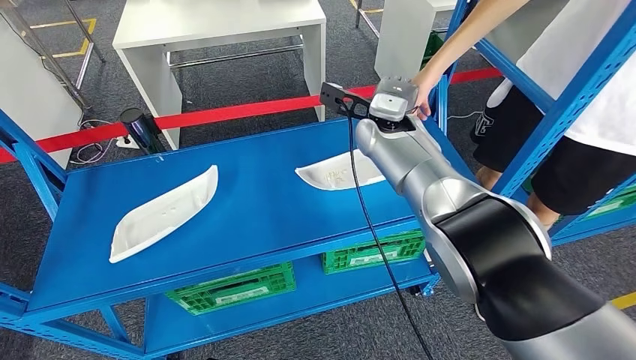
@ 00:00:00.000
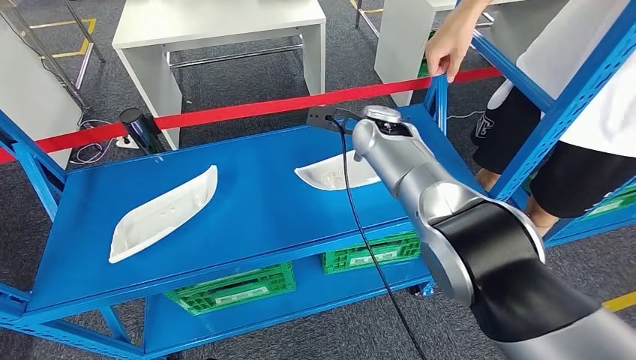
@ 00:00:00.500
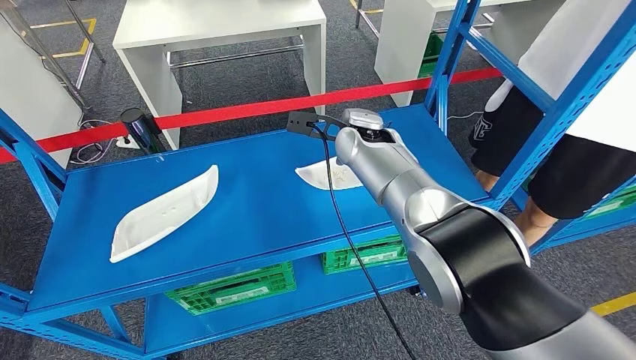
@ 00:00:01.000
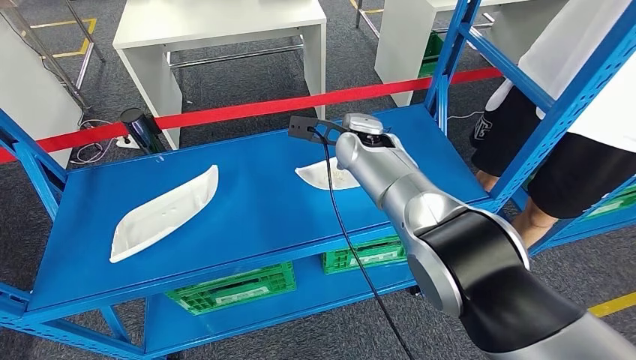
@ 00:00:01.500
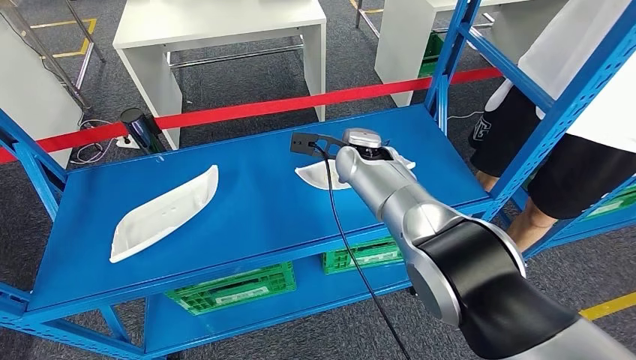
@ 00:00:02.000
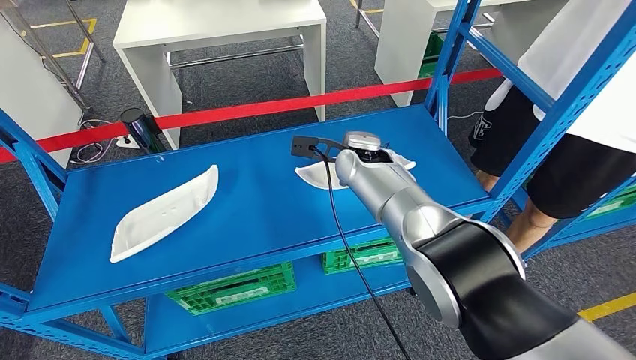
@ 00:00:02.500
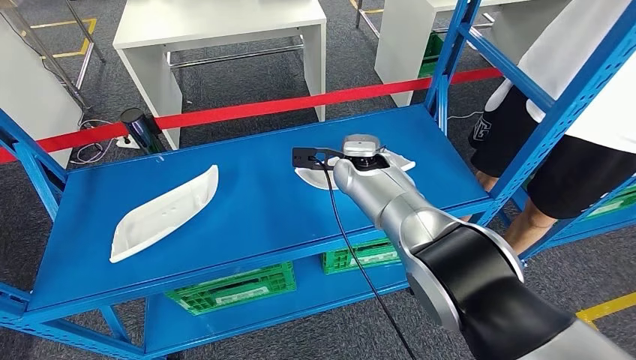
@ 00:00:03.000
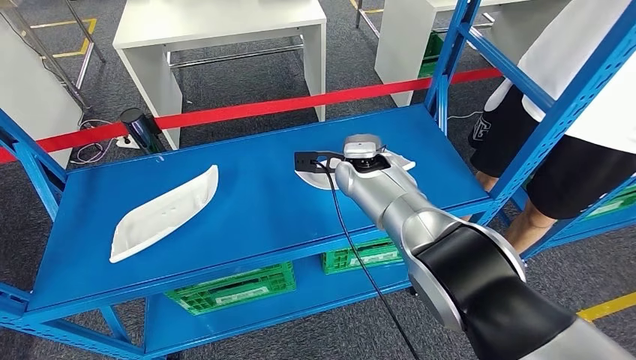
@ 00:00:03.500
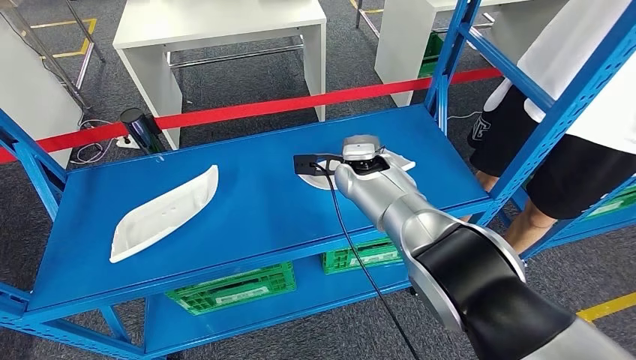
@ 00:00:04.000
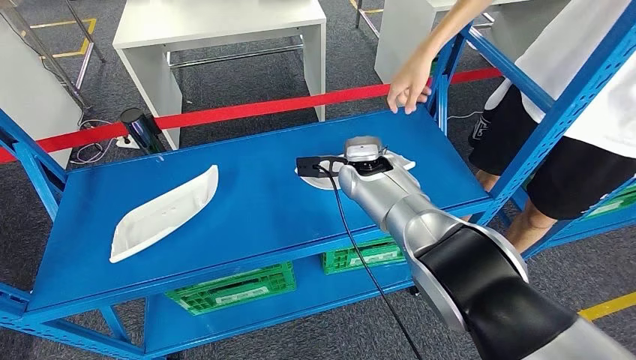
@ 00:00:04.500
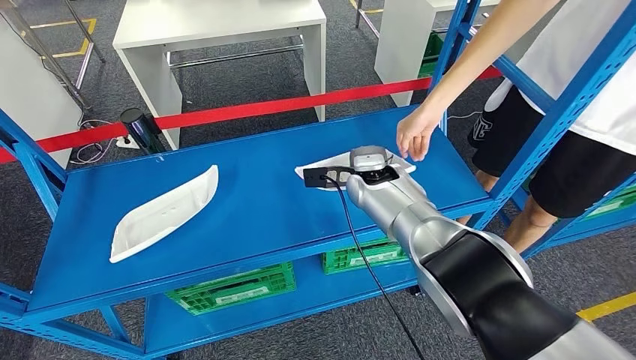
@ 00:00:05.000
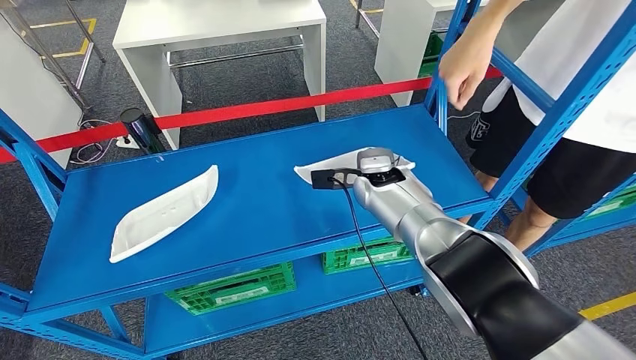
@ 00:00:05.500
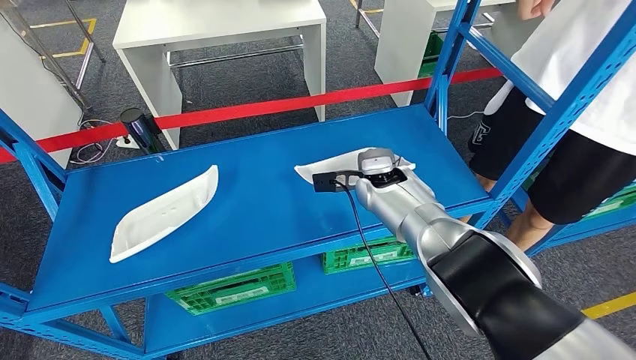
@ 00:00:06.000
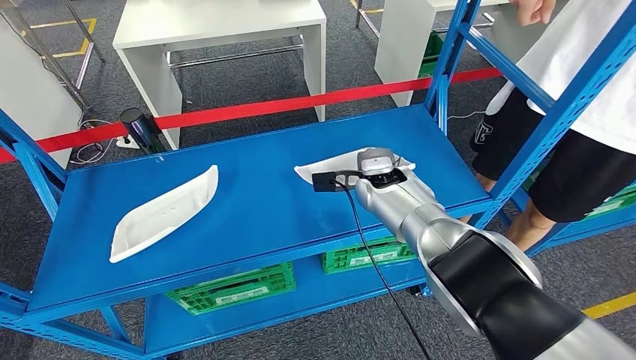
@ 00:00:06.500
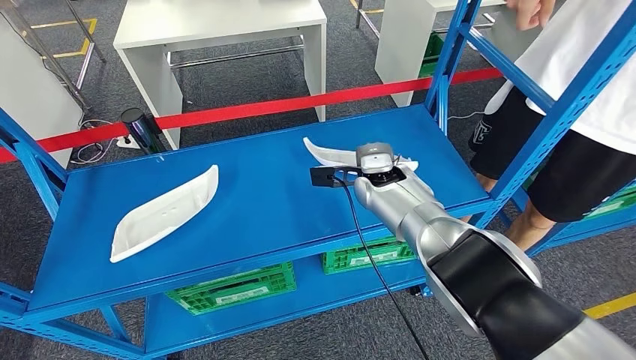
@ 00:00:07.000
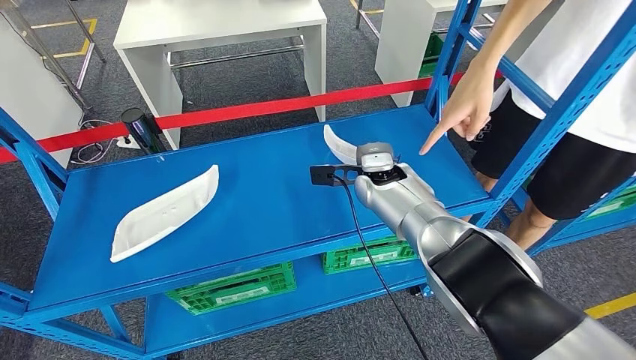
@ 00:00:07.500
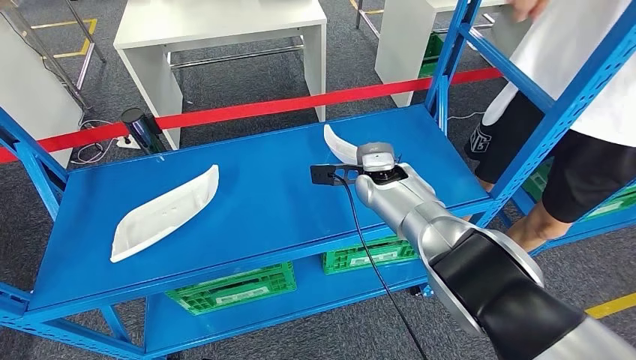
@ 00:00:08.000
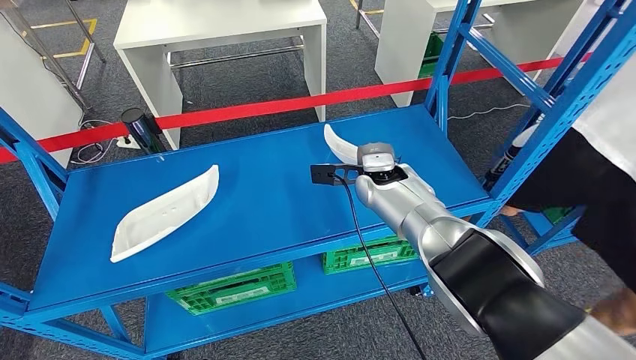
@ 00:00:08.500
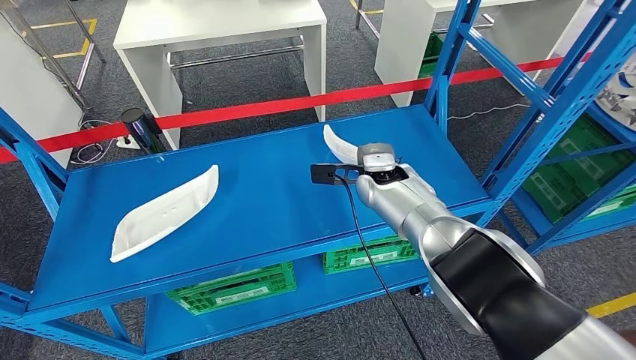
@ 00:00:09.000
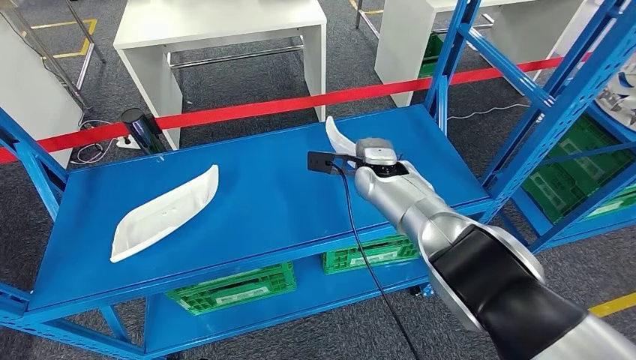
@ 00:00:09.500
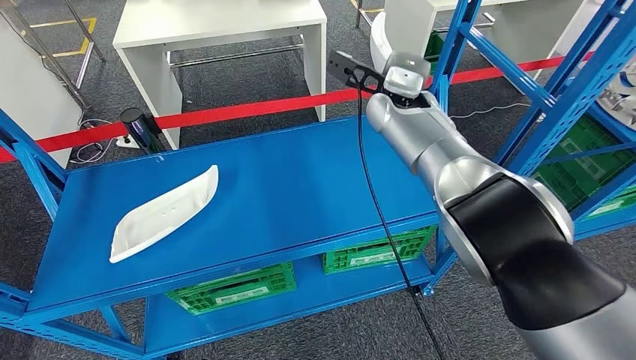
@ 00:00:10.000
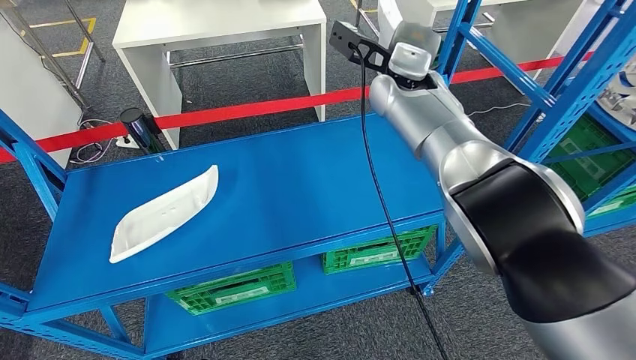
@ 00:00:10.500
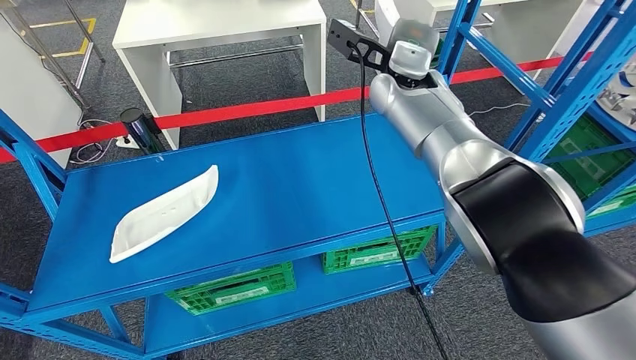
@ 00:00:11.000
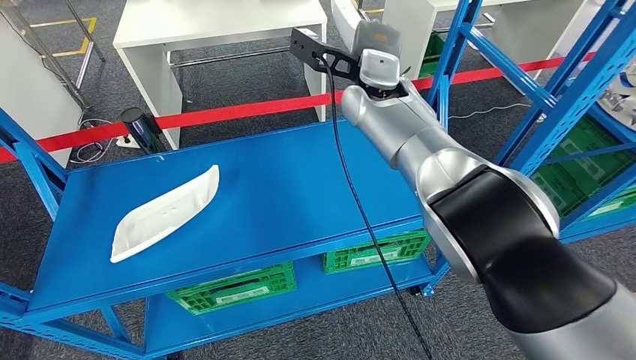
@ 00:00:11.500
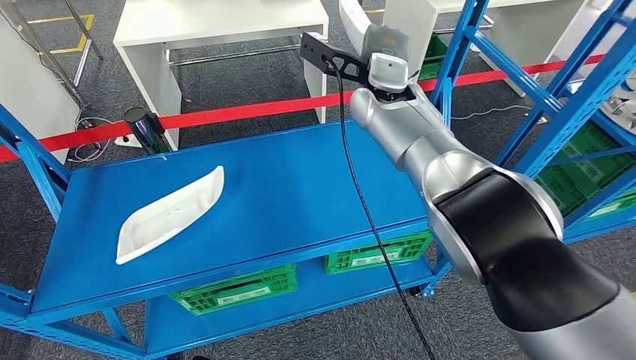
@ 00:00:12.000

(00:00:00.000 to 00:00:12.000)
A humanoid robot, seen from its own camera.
00:00:00.000 - 00:00:02.000: The right hand changes place by some 5 cm.
00:00:02.000 - 00:00:04.000: There are only small adjustments of the hands.
00:00:04.000 - 00:00:06.000: The right hand moves some 5 cm.
00:00:06.000 - 00:00:08.000: Both hands stay put.
00:00:10.000 - 00:00:12.000: The hands move only a little.

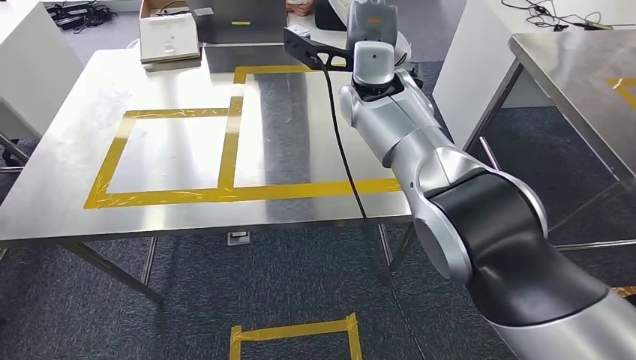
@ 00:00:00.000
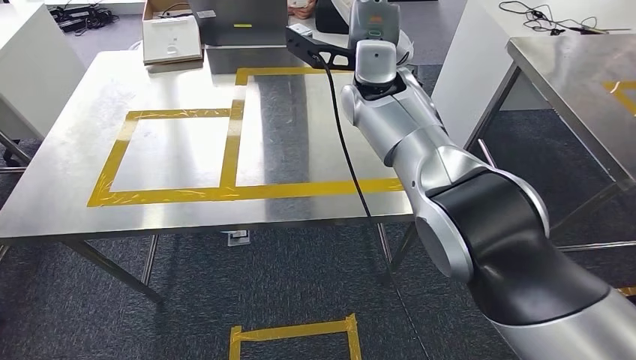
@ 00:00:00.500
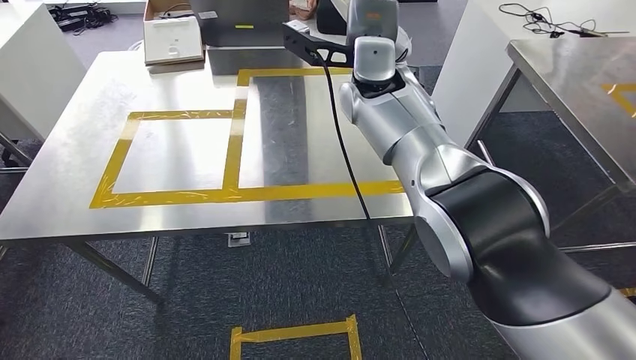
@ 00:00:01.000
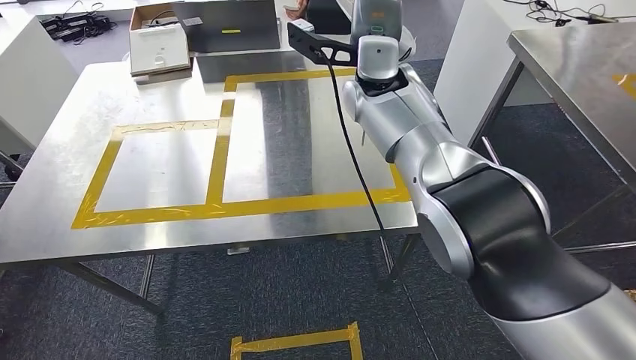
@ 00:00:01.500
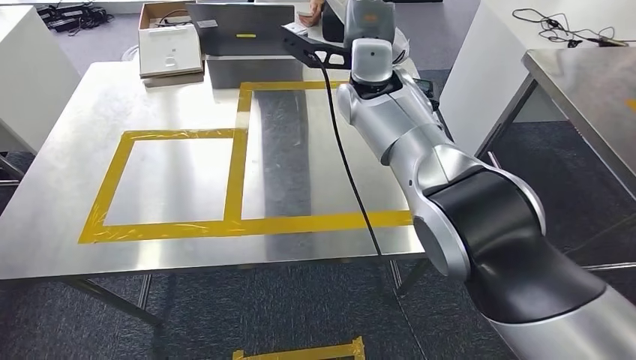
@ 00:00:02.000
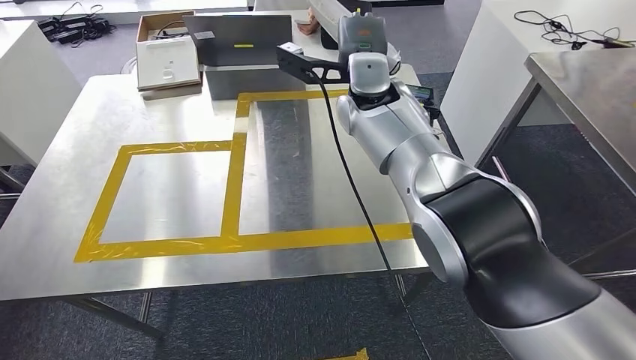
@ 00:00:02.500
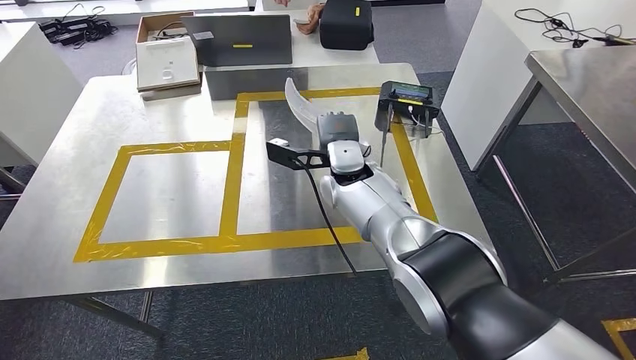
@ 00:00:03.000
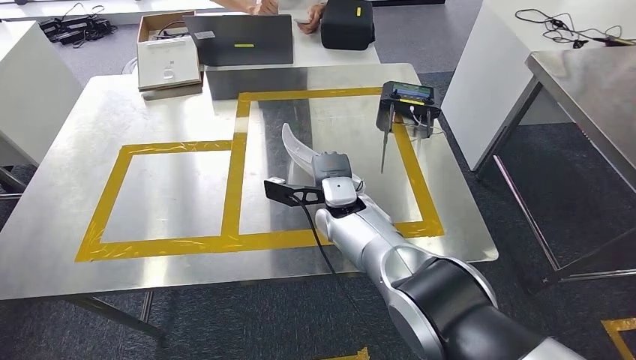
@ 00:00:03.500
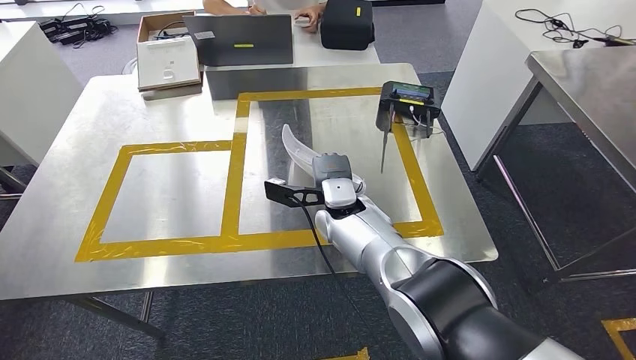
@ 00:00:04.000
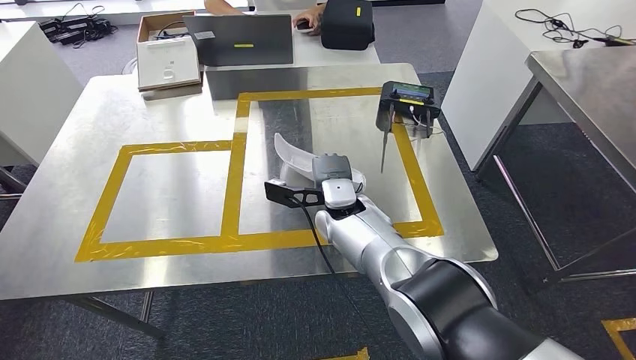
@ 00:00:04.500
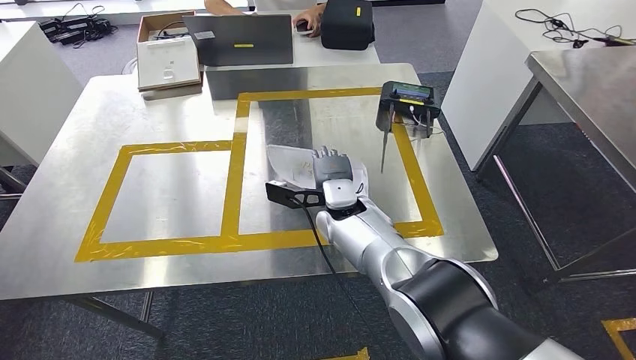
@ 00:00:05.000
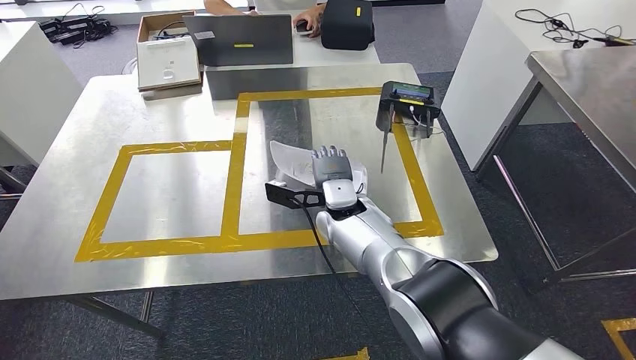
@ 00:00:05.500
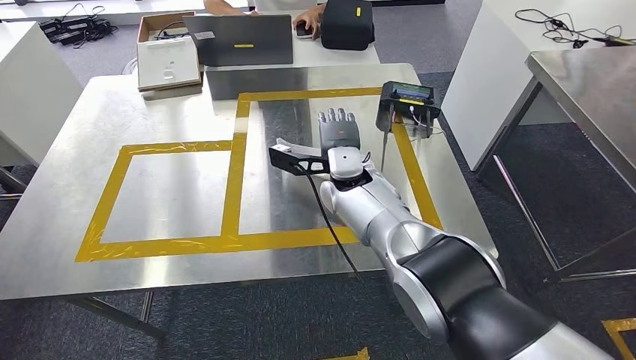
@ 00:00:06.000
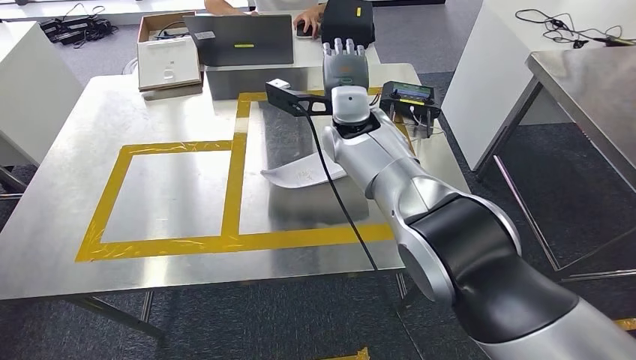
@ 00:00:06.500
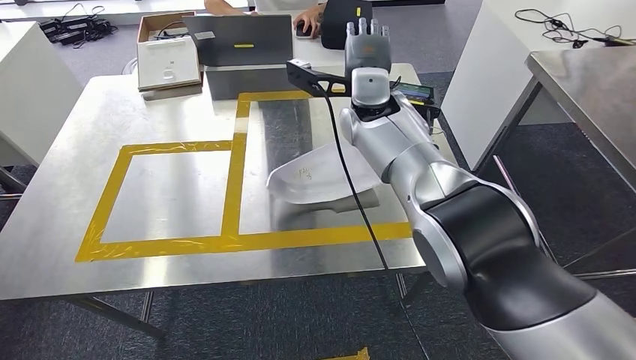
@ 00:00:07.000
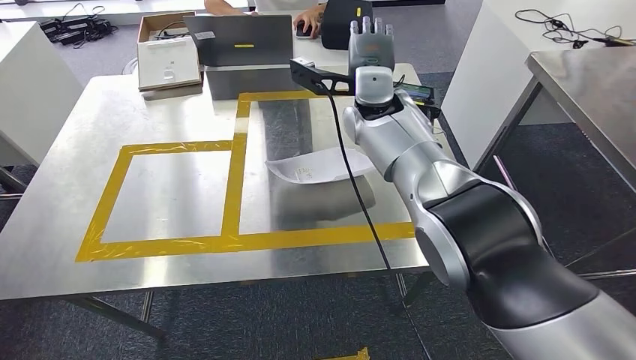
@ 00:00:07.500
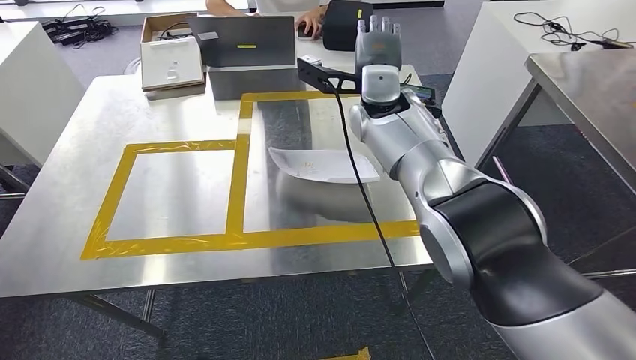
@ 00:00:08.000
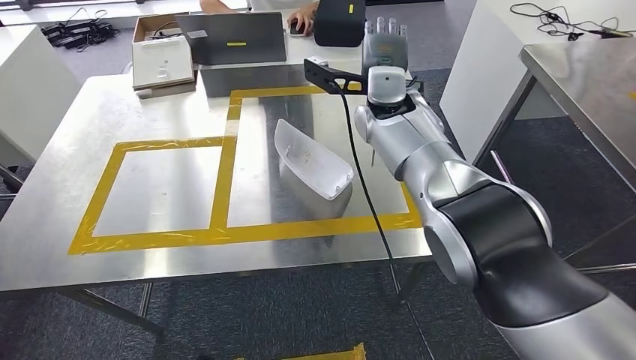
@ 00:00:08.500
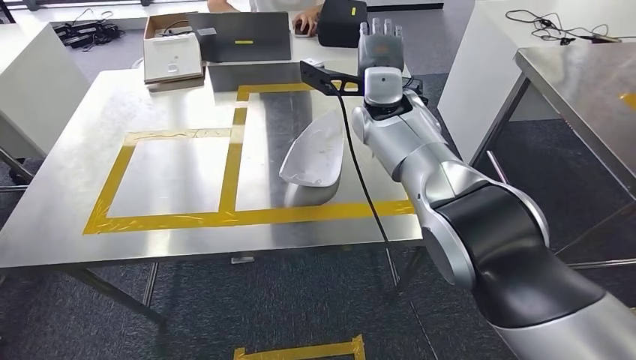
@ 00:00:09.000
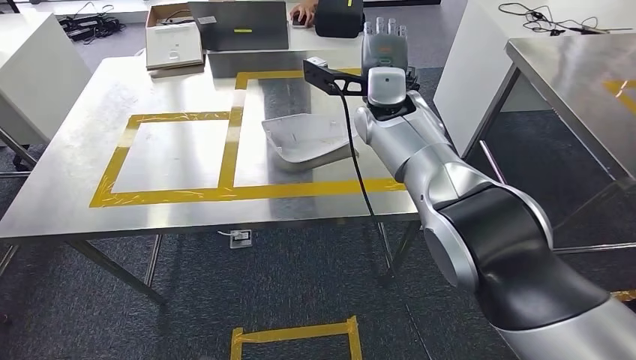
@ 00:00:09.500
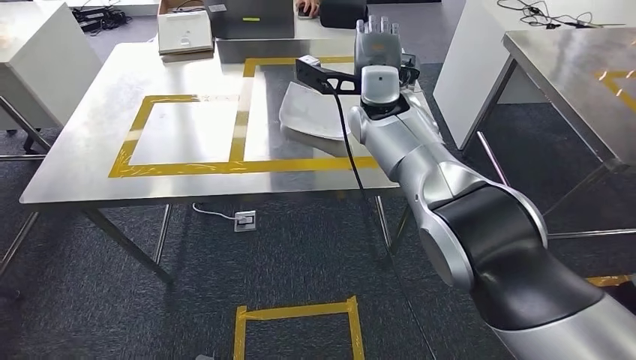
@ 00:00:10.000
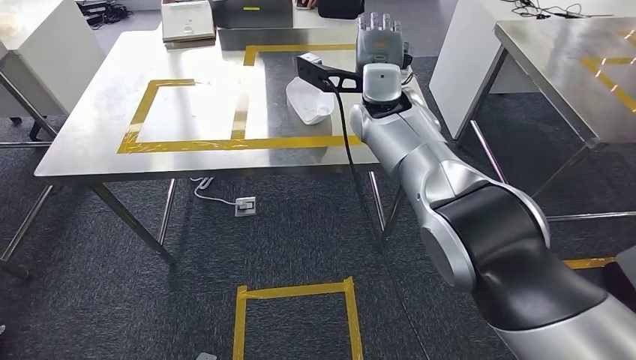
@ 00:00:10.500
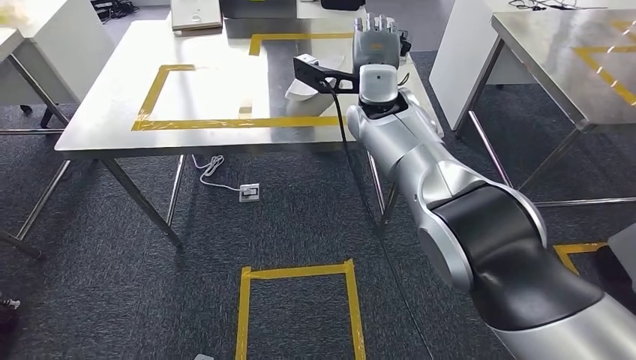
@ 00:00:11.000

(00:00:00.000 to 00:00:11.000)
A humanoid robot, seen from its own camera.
Step, 00:00:01.500 - 00:00:07.000: Insert the small component into the corresponding slot on the workbench.
00:00:03.500 - 00:00:05.500: Both hands stay put.
00:00:05.500 - 00:00:07.500: The right hand goes some 20 cm upward and forward.
